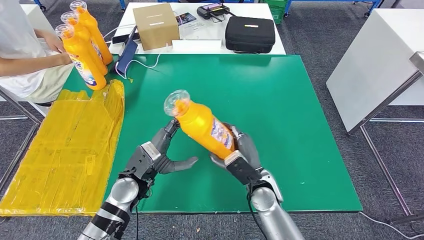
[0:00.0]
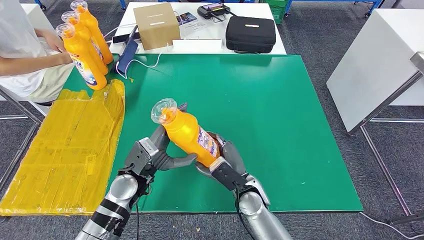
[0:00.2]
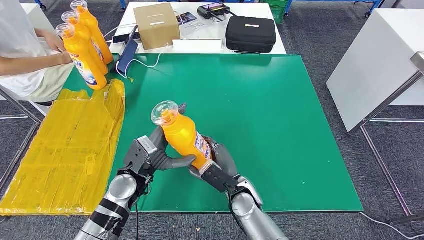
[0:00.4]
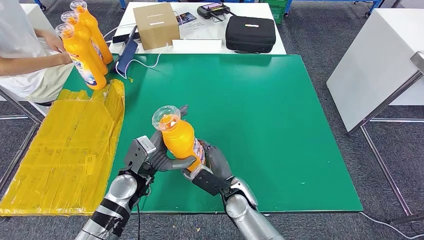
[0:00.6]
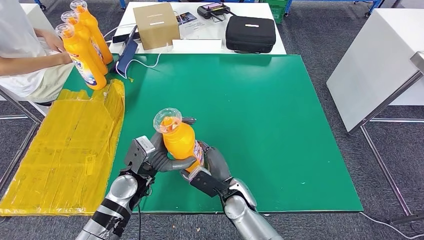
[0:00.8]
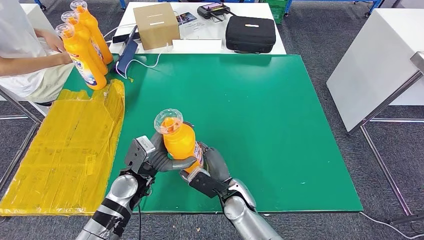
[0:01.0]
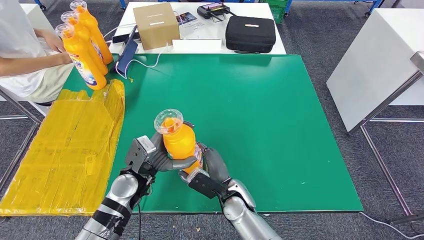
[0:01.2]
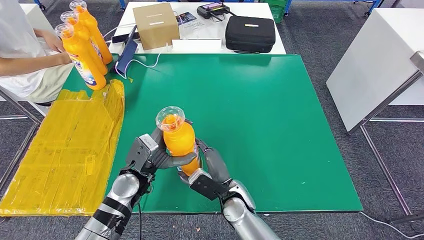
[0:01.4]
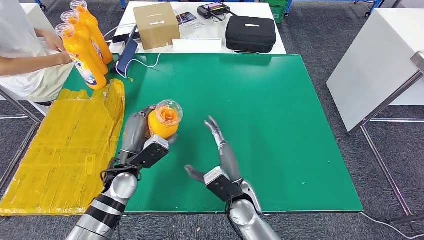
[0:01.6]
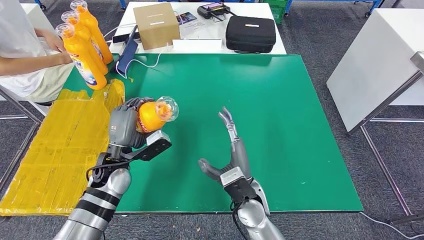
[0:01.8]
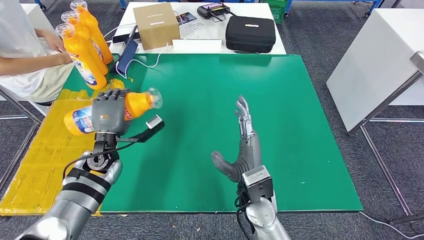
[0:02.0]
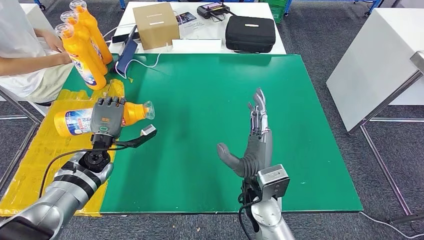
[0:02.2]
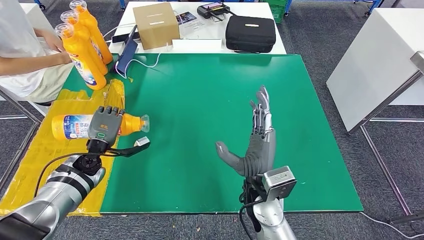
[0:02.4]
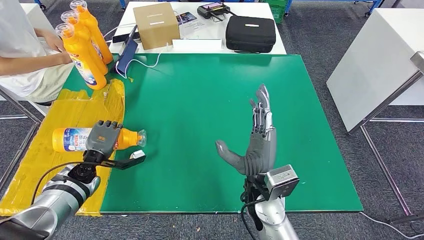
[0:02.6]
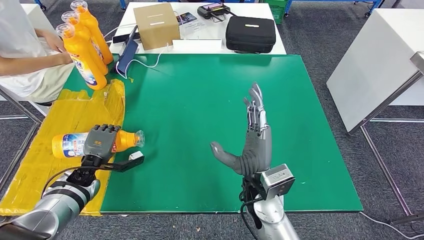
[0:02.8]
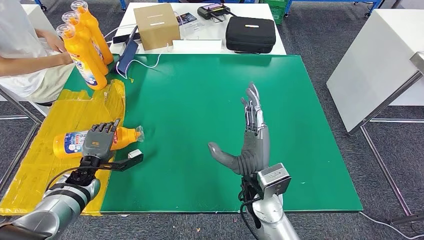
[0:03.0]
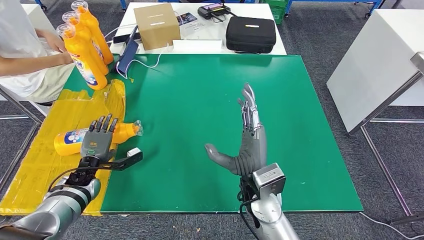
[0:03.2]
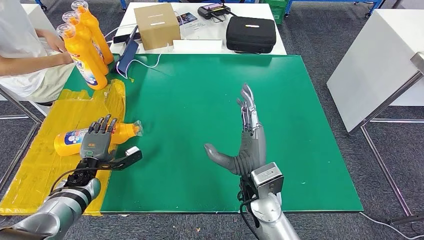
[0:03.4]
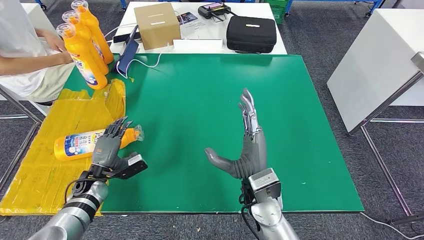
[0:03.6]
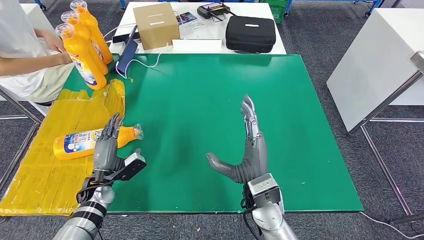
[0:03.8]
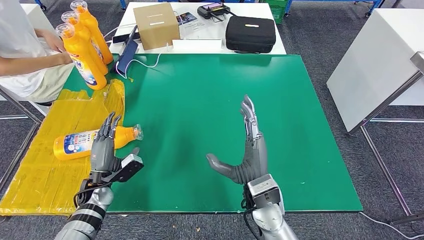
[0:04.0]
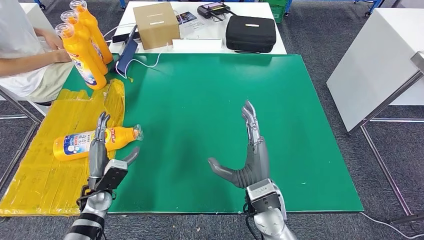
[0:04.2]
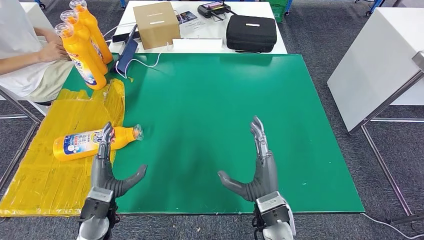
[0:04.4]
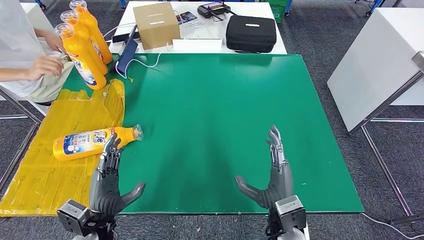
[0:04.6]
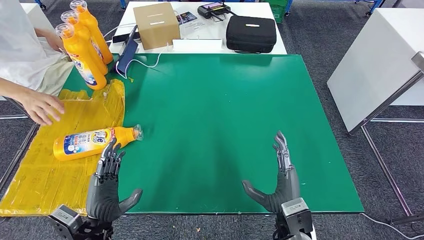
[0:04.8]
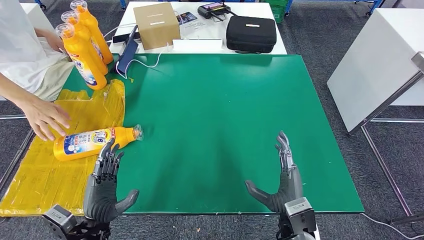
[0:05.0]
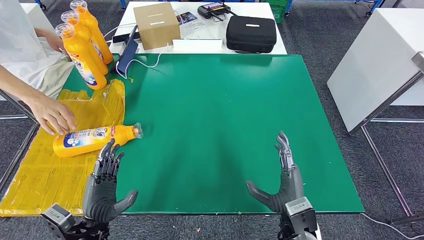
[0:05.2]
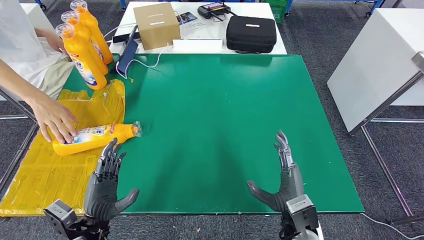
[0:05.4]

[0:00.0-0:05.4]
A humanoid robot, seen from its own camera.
Step, 0:01.4 to 0:05.4: Flip the fast-moving consumer goods bottle to the front side.
0:00.0 to 0:01.4: The right hand heads to the left, covering approximately 5 cm.
0:01.4 to 0:02.8: The left hand moves to the left and downward, roughly 20 cm, while the right hand goes about 10 cm upward.
0:02.8 to 0:04.0: The left hand ends up some 5 cm from where it was.
0:04.0 to 0:05.4: The right hand is displaced to the right, backward and downward by roughly 10 cm. Meanwhile the left hand is displaced backward by some 15 cm.
